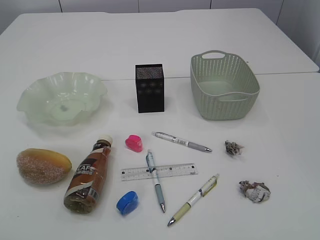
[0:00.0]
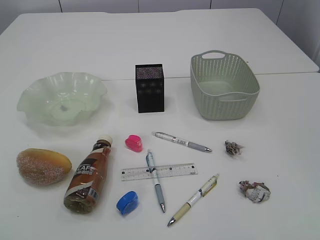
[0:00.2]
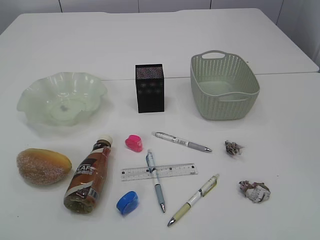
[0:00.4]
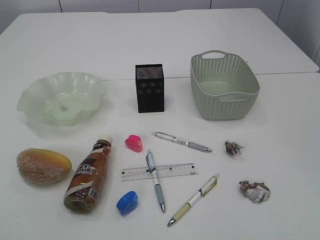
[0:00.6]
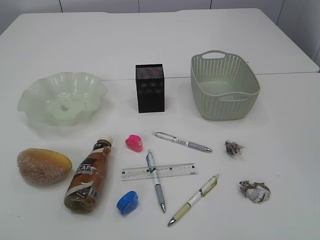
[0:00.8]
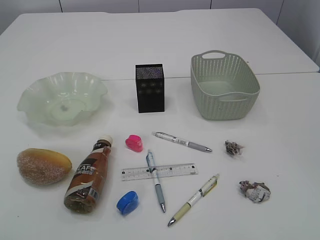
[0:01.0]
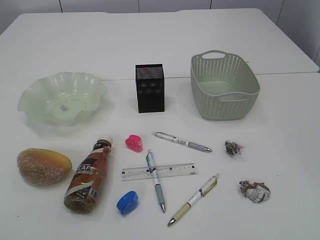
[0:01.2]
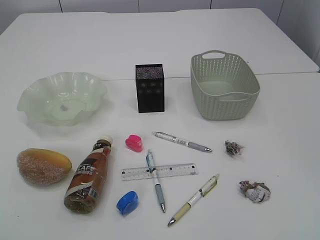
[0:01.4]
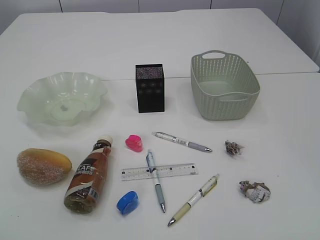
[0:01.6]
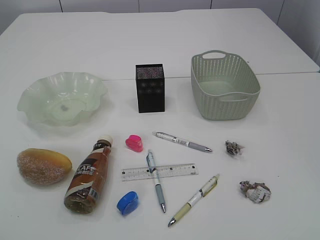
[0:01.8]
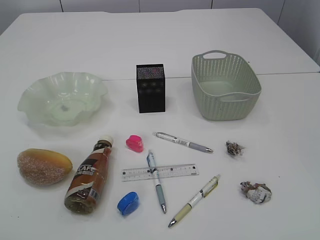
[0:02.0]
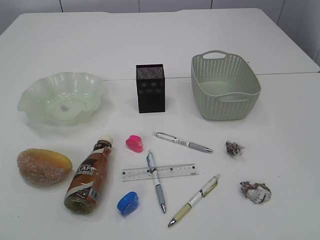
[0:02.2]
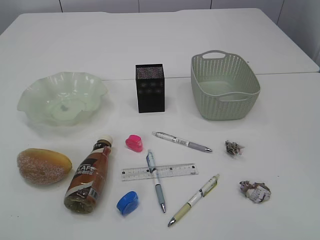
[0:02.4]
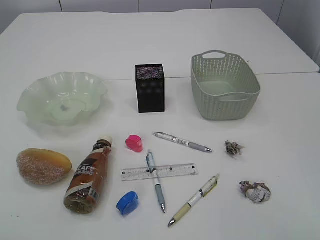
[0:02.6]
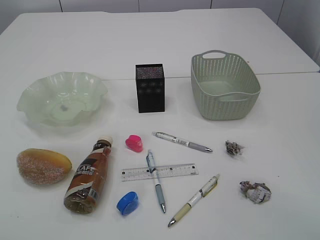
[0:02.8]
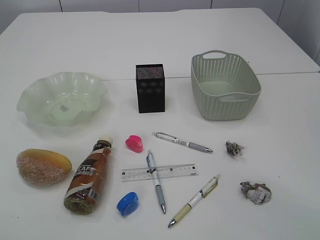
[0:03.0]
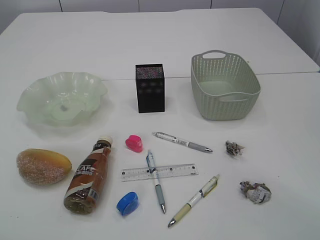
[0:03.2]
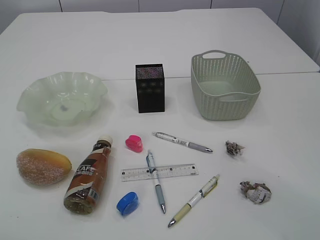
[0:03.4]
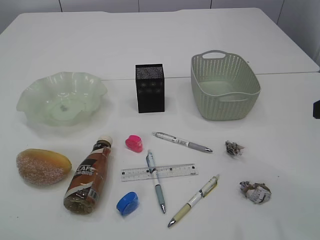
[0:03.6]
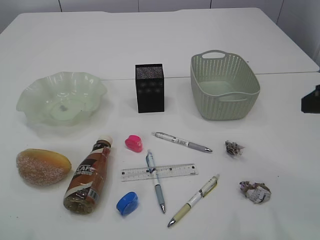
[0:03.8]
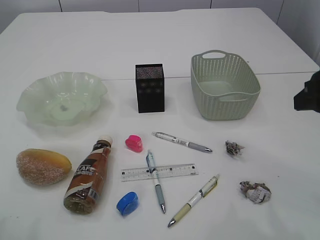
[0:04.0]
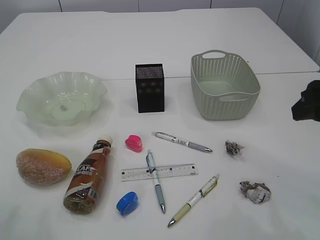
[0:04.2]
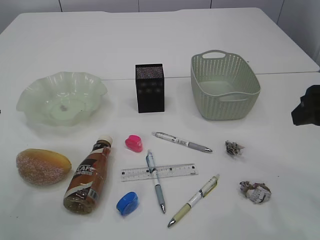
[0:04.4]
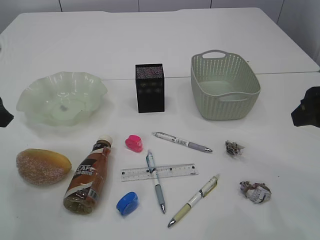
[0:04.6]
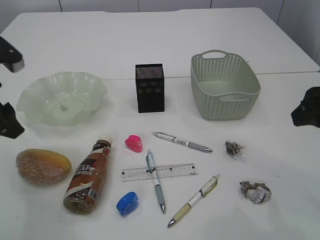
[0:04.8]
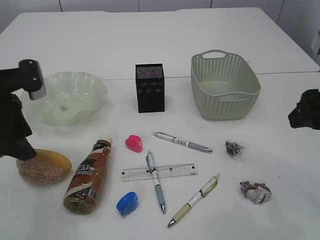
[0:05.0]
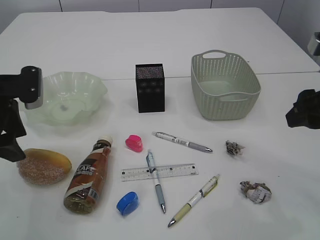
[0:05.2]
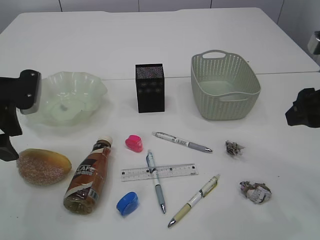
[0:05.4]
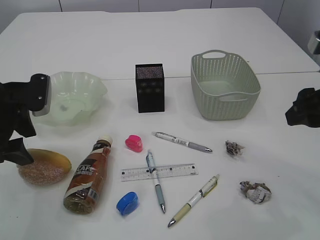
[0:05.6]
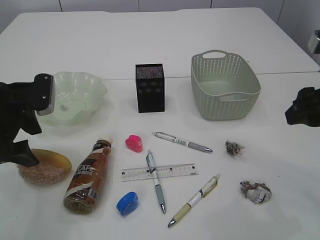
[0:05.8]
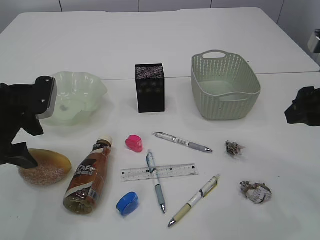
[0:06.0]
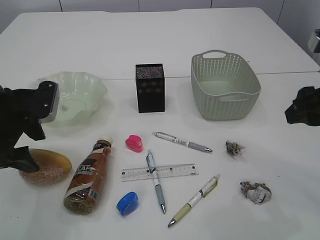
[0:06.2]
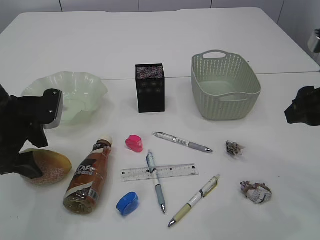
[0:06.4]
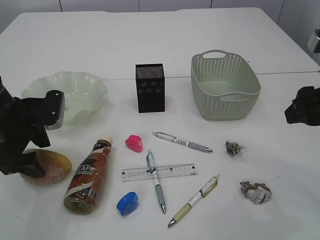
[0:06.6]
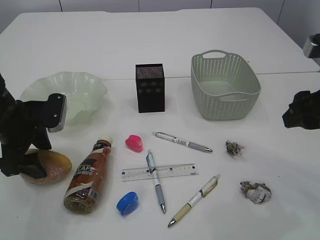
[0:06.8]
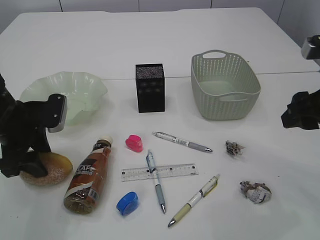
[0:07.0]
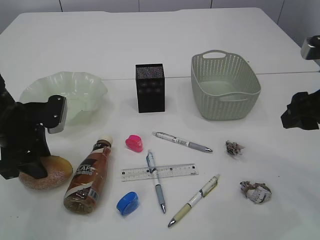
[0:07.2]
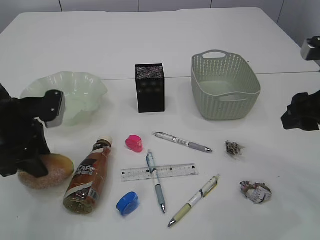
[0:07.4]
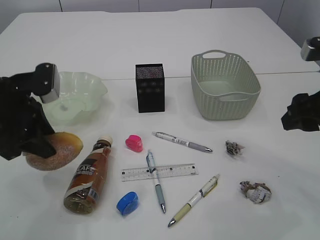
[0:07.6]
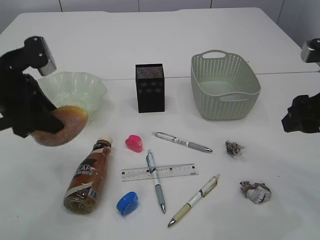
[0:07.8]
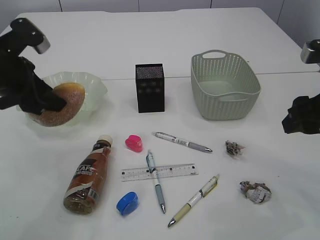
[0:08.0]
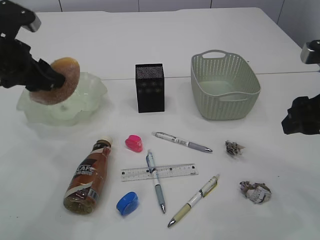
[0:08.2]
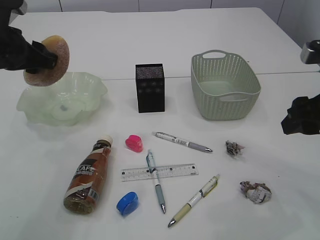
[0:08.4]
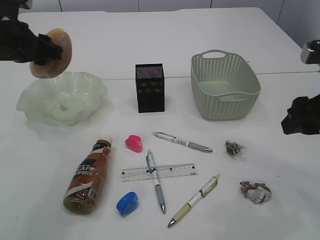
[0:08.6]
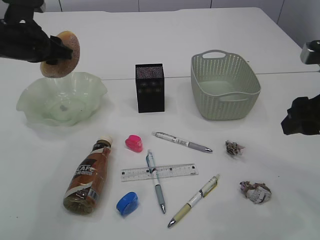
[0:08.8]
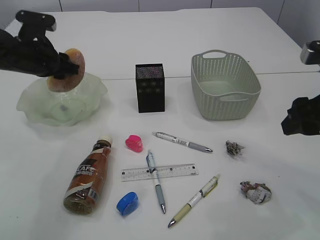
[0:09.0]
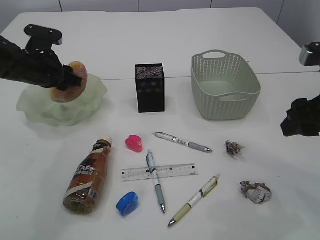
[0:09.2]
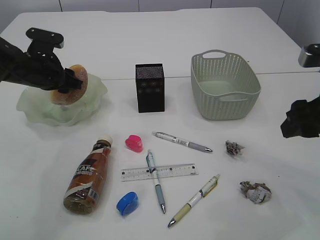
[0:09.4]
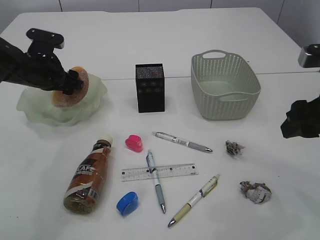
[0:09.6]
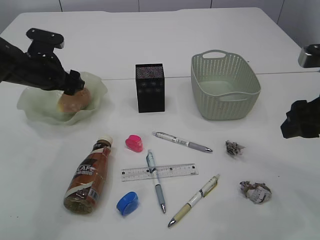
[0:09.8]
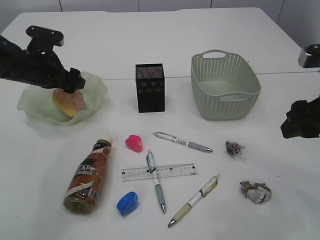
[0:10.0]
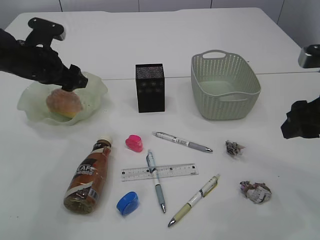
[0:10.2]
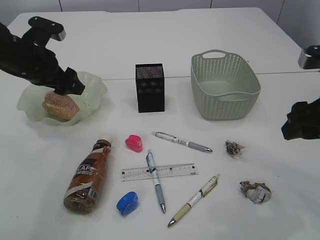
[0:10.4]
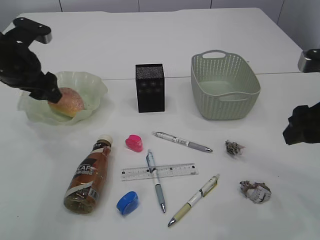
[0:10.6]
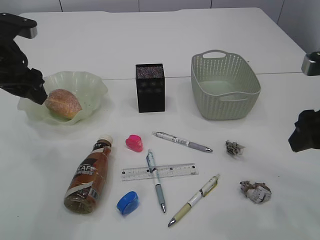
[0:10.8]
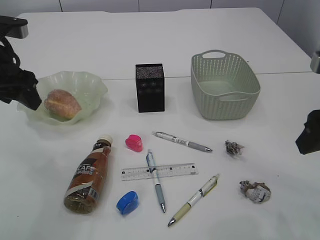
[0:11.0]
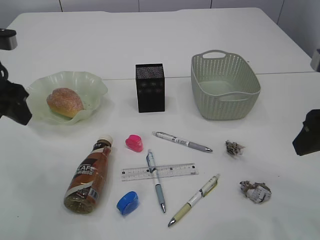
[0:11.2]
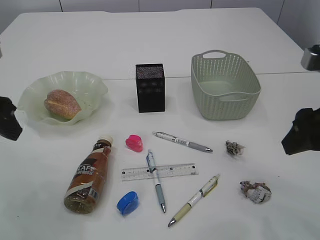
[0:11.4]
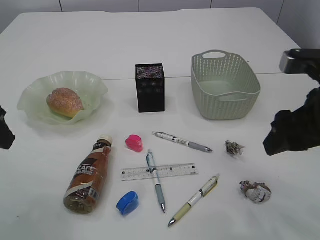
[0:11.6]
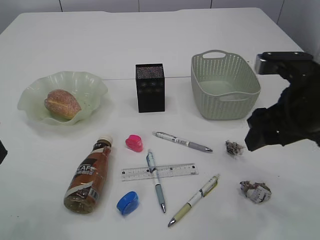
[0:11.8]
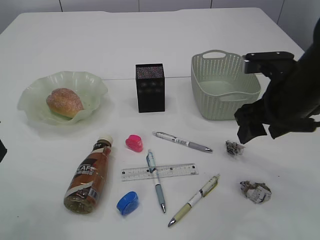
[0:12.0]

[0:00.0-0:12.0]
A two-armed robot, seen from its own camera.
Step, 0:07.8 to 0:11.0: place the bread in the plate.
0:01.6 to 0:03.0: The left gripper heads forward, covering some 10 cm. The right gripper heads forward, covering some 15 cm.
0:03.0 to 0:04.4: The grippers both shift forward by roughly 15 cm.
0:04.4 to 0:06.0: The left gripper travels downward and forward by roughly 10 cm, and opens.
0:06.0 to 0:07.6: The left gripper closes up.
0:07.6 to 0:09.0: The left gripper is displaced forward by some 15 cm.
0:09.0 to 0:10.4: The left gripper opens up.
0:10.4 to 0:12.0: The left gripper heads backward, covering some 15 cm, and closes. The right gripper moves to the left, approximately 5 cm.

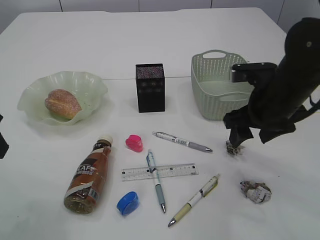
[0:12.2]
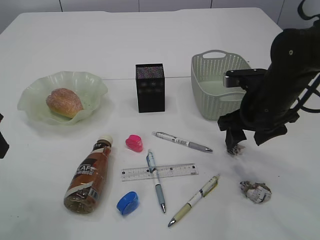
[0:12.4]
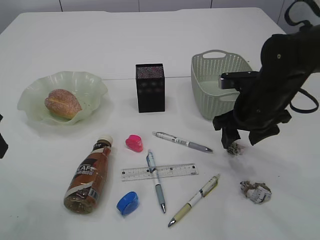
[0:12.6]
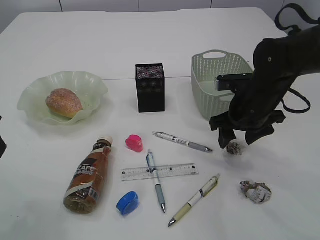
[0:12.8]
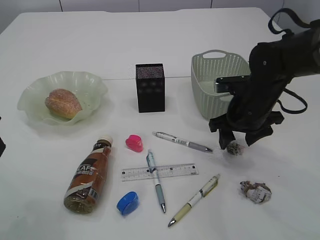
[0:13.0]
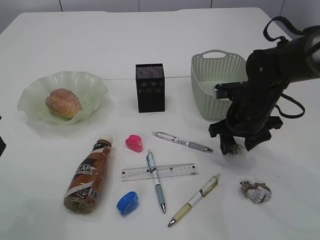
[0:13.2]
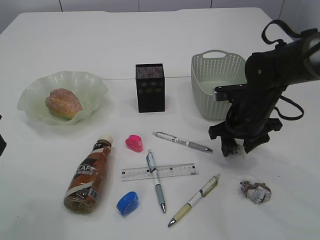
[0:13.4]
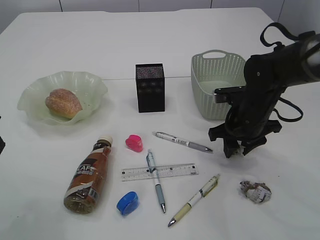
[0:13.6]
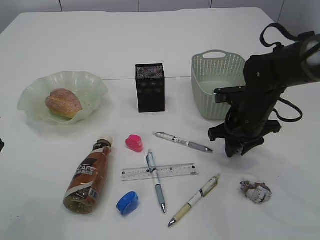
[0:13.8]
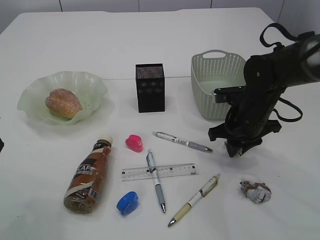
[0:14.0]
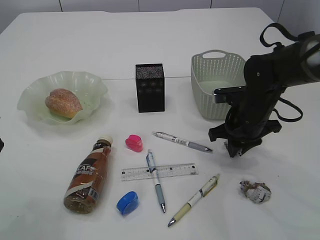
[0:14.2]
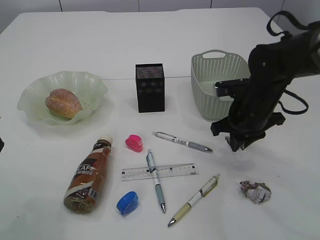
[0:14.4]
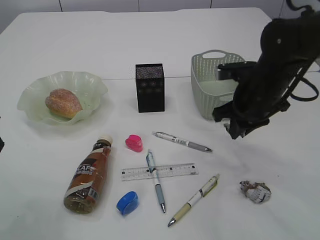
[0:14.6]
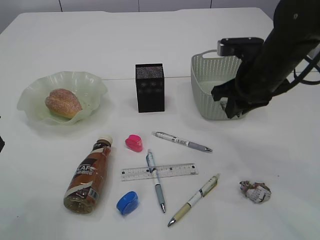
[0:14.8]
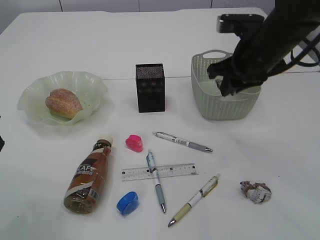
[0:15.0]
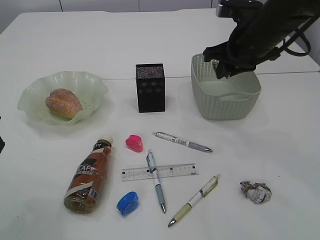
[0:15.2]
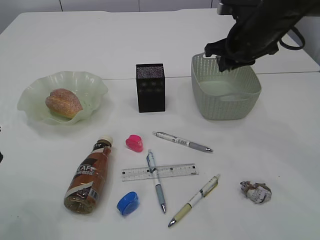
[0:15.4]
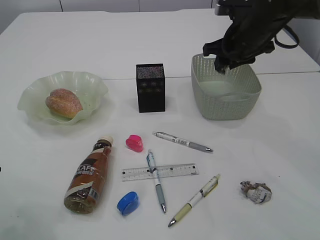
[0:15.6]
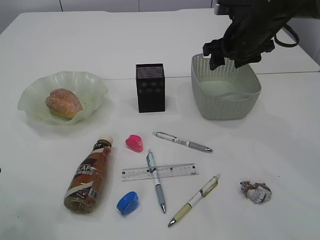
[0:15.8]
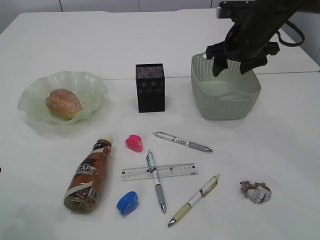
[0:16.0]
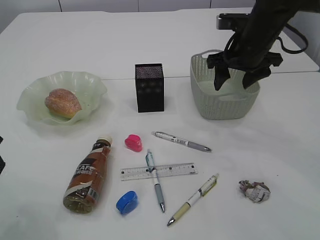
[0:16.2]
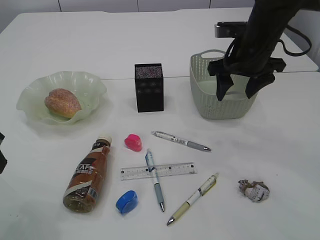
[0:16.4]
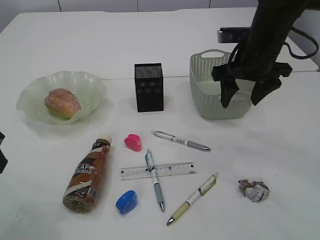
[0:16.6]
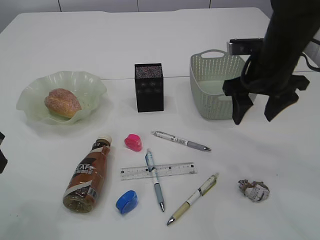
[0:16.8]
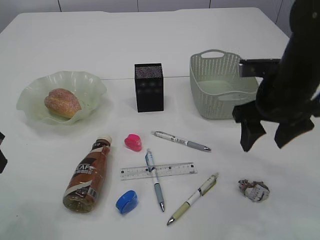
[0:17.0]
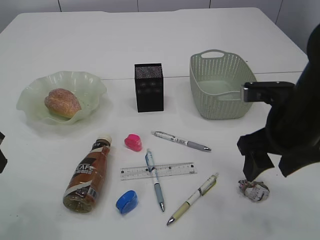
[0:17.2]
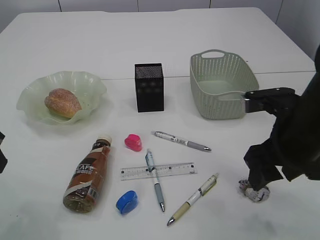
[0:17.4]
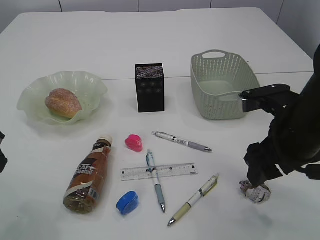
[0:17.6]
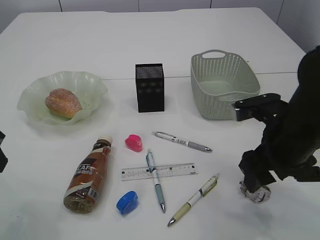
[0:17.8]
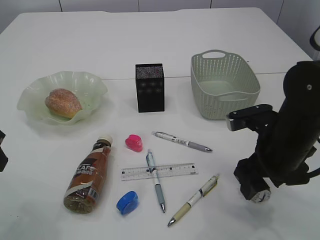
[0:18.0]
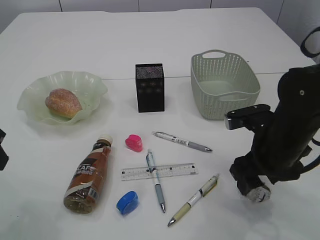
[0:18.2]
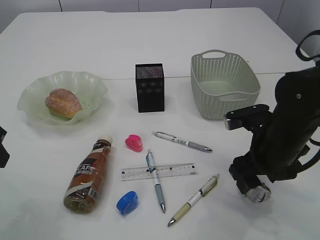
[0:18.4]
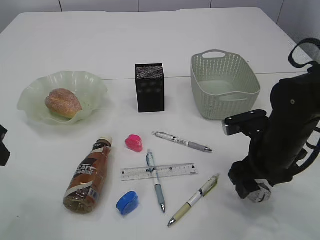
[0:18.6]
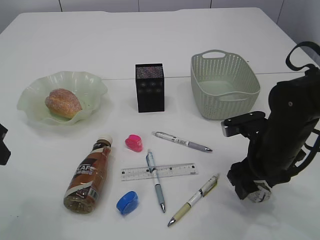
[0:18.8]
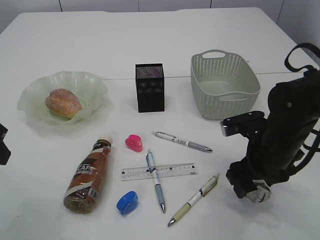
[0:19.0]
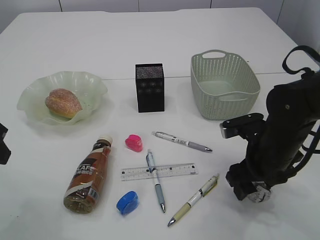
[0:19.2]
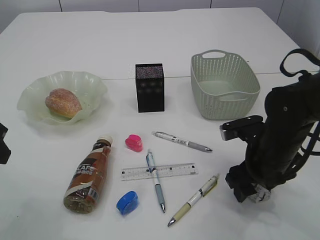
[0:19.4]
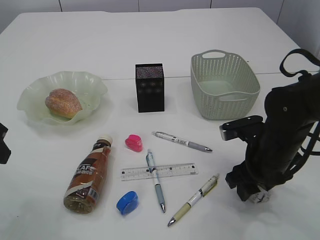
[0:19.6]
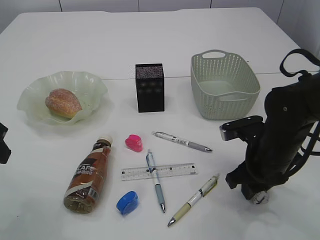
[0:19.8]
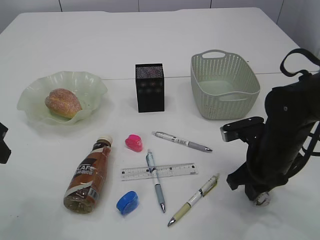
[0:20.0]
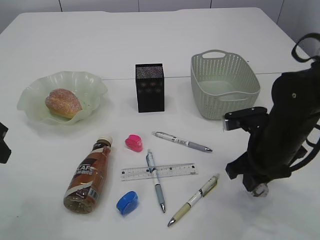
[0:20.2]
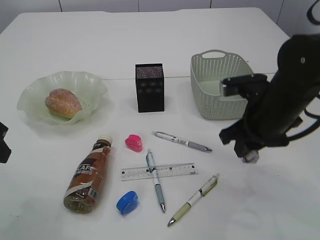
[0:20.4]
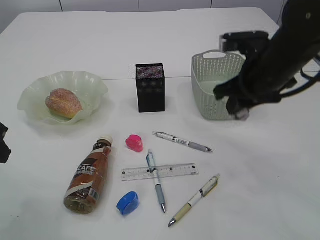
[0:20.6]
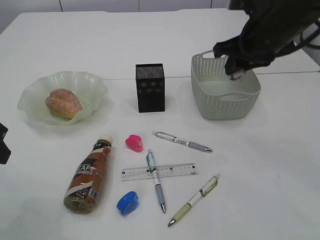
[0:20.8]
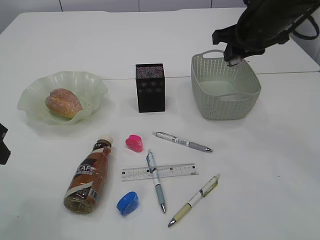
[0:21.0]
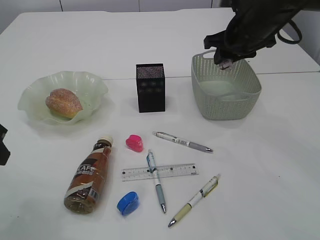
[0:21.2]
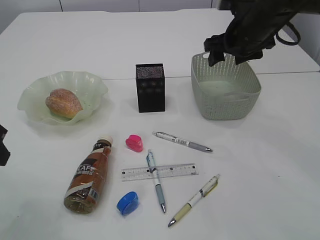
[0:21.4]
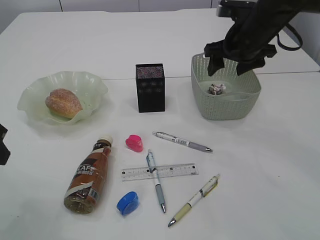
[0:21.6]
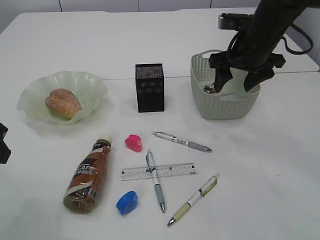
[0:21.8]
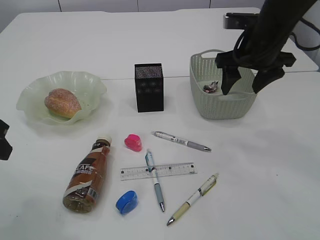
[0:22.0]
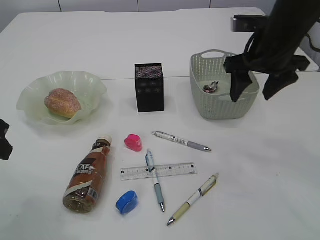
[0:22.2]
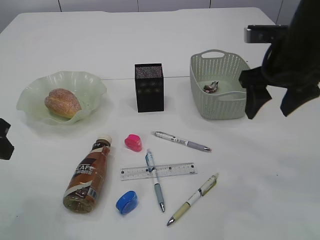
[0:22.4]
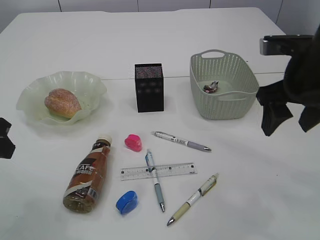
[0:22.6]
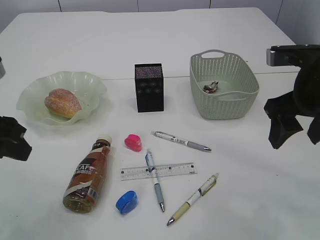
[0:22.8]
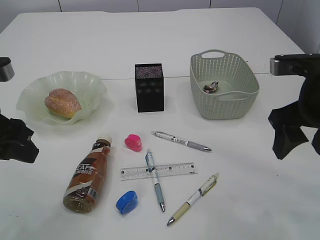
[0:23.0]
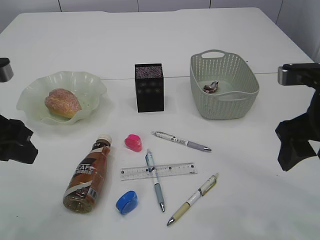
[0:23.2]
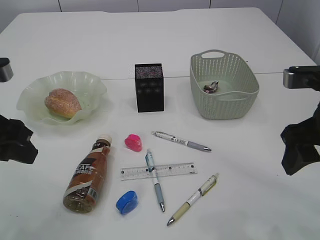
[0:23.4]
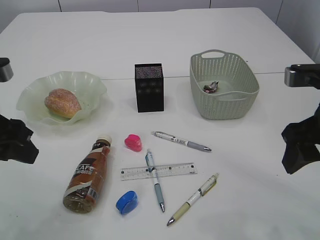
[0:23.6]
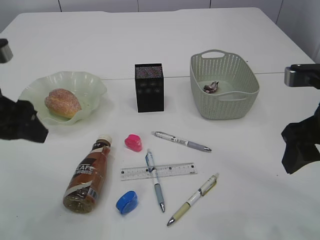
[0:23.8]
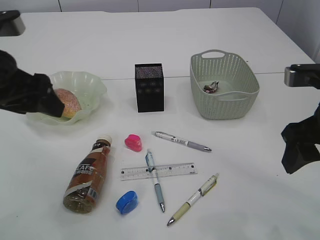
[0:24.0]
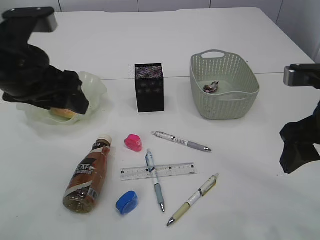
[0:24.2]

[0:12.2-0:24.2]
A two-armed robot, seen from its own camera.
Step, 0:12.2 to 0:14.6: Pick up the waste paper.
Step, 0:14.8 to 0:16.0: Place the waste paper in the basket.
Step, 0:16.2 to 0:20.4: Pick up the waste paper.
Step, 0:20.6 to 0:21.6: Place the waste paper in the basket.
0:12.2 to 0:13.8: The right gripper heads downward and forward, covering some 10 cm, and closes its fingers.
0:13.8 to 0:15.2: The right gripper heads upward, covering about 15 cm.
0:15.2 to 0:16.6: The right gripper opens its fingers.
0:16.6 to 0:18.2: The right gripper goes approximately 15 cm backward and downward.
0:18.2 to 0:19.8: The right gripper closes its fingers.
0:19.8 to 0:21.2: The right gripper shifts roughly 20 cm forward and upward.
0:21.2 to 0:22.6: The right gripper goes some 15 cm backward, and opens.
0:22.6 to 0:24.2: The left gripper goes about 10 cm to the right, and opens up; the right gripper moves backward, about 5 cm.
